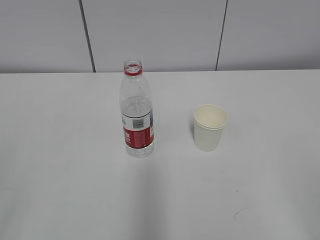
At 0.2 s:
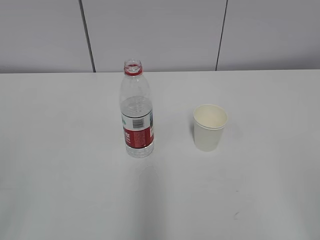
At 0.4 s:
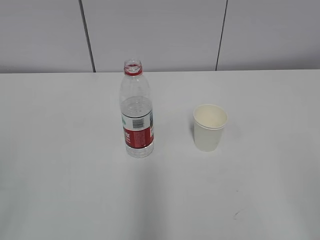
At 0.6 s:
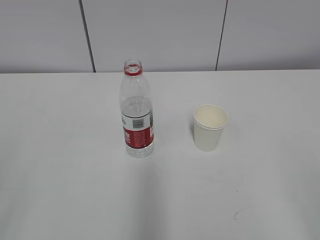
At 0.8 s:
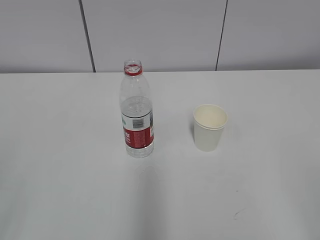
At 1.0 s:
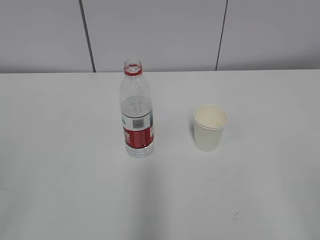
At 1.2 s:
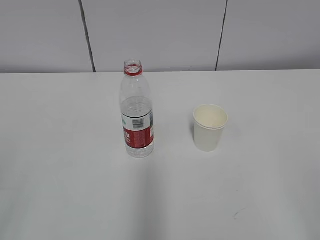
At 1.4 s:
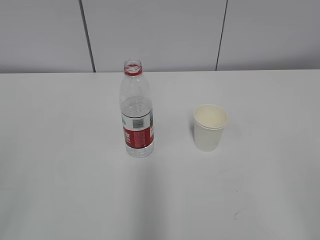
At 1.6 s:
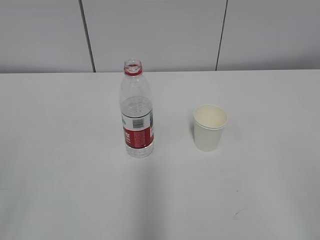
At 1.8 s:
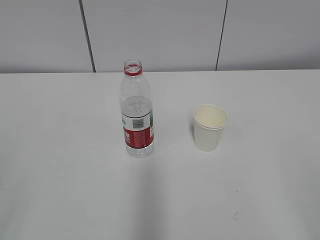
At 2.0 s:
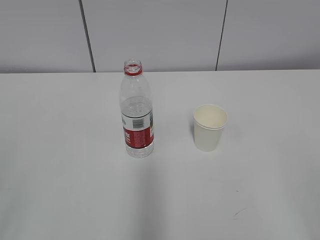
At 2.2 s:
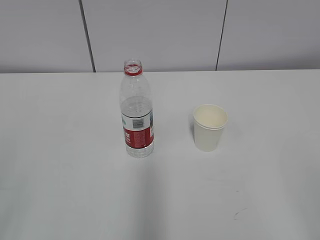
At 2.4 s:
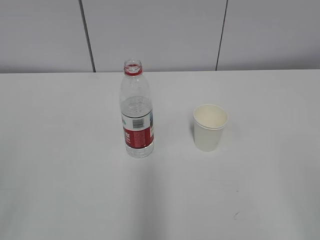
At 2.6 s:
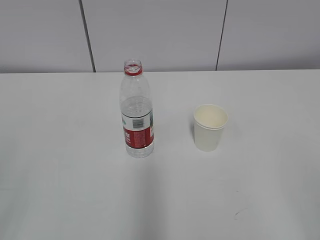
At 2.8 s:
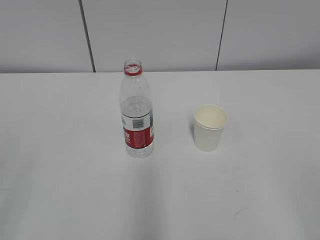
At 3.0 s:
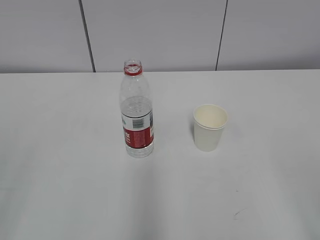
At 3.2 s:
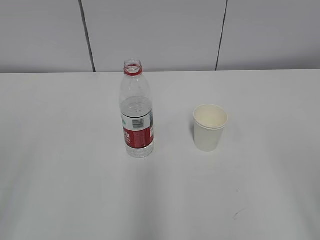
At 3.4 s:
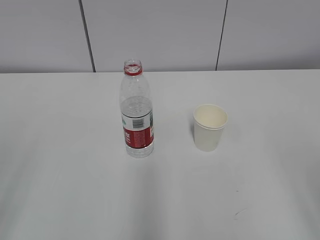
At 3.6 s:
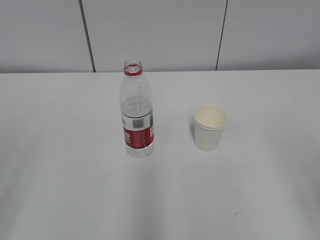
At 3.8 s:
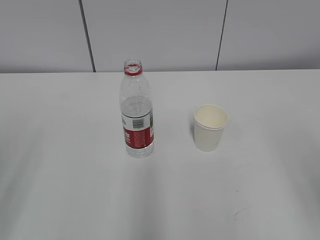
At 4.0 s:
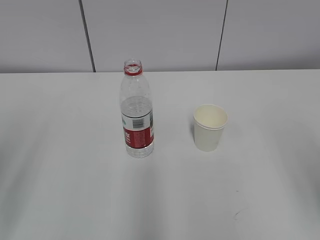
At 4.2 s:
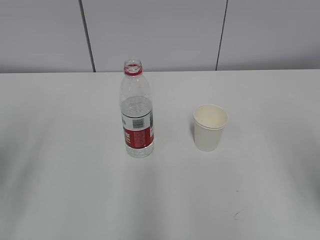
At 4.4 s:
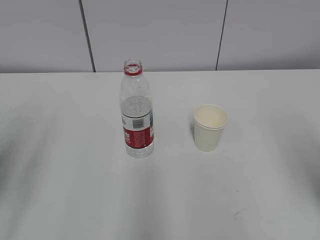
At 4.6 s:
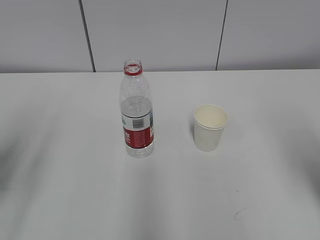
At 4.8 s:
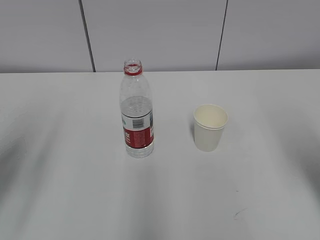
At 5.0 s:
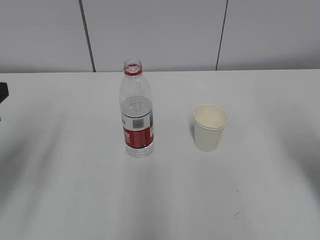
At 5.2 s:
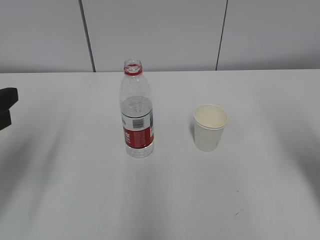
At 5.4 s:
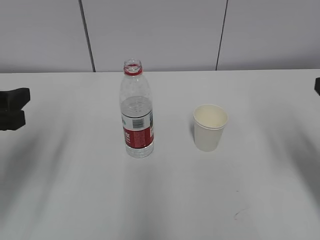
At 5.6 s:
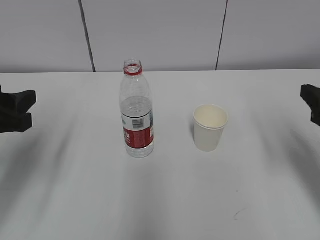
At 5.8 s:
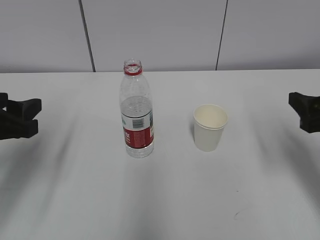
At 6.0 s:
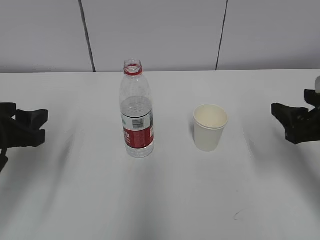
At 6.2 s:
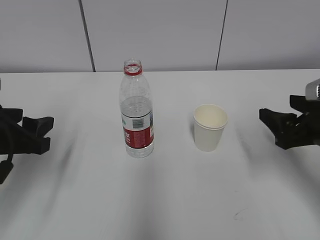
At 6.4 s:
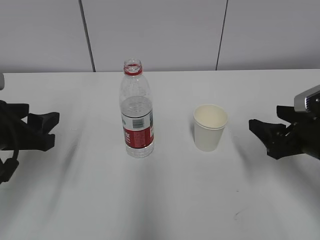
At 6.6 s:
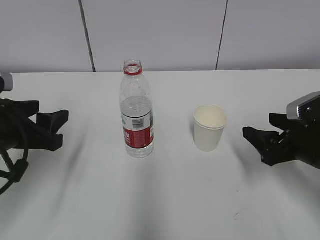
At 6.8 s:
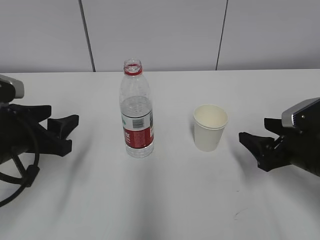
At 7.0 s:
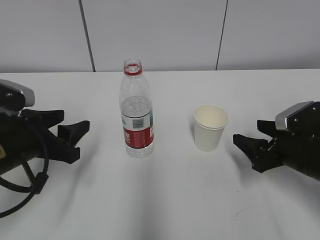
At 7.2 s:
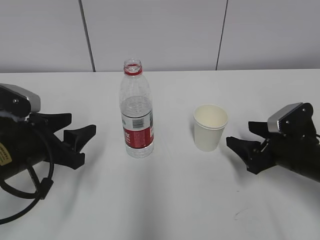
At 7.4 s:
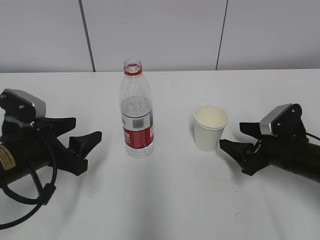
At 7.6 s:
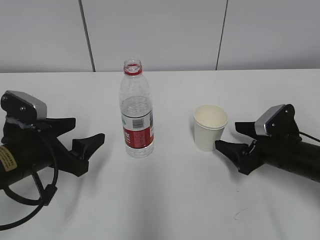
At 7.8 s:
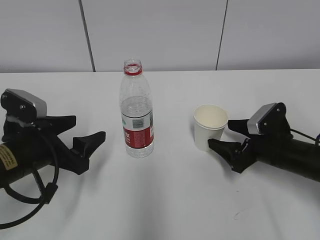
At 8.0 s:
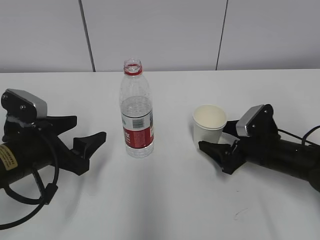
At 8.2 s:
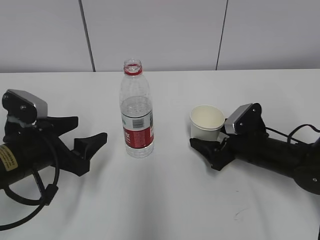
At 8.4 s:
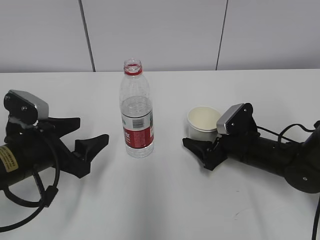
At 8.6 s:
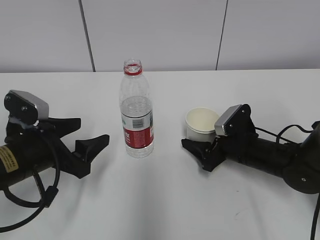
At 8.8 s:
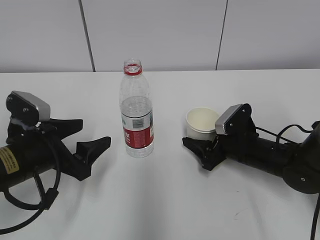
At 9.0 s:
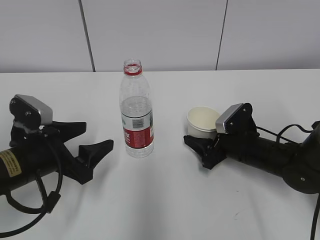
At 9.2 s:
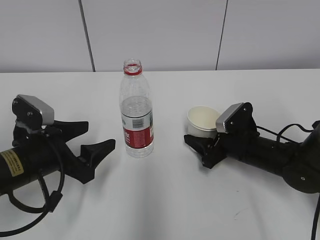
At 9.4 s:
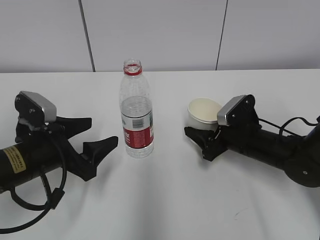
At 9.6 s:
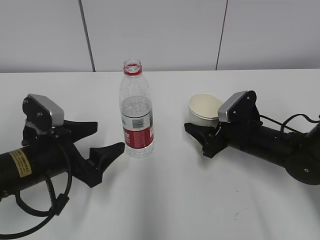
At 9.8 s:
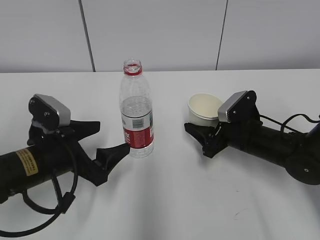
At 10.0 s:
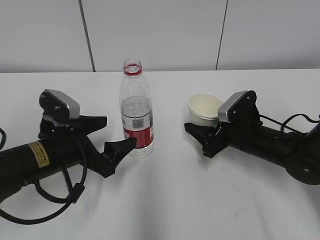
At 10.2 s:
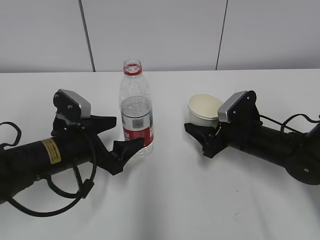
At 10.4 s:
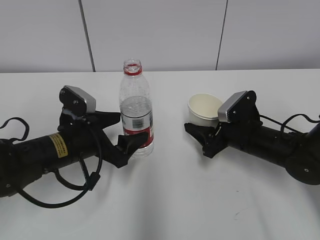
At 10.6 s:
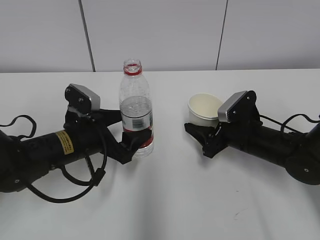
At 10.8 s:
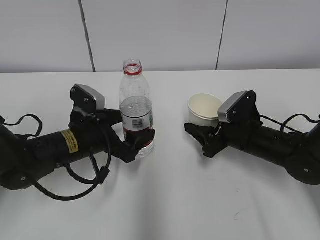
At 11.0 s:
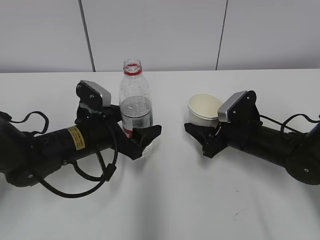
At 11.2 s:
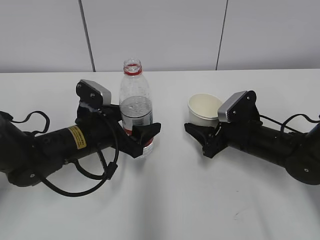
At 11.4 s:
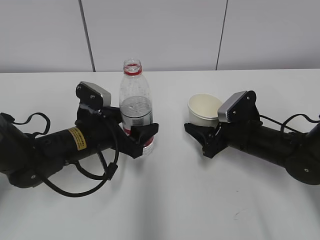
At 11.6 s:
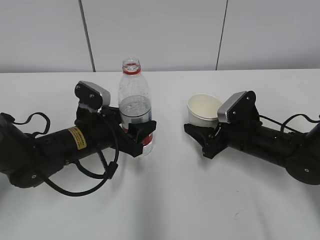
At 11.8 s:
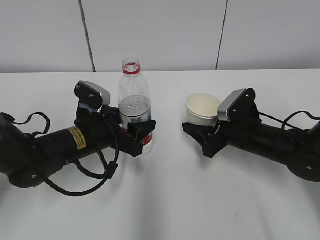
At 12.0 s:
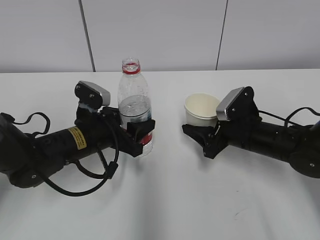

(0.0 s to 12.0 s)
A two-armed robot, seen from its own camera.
Step, 0.0 s - 7.2 s: Grab the paper cup with the right hand.
Step, 7.4 s - 9.8 s: Grab the water bottle with the left hand.
4.4 s - 6.0 s: Both grippers move forward and downward, about 15 cm.
6.0 s - 7.6 s: The right gripper travels downward and forward by approximately 15 cm, and opens up. The left gripper moves downward, approximately 5 cm, and opens its fingers.
7.6 s - 9.0 s: The right gripper travels to the left by roughly 5 cm, and closes.
9.0 s - 10.4 s: The left gripper changes place by roughly 5 cm.
10.4 s - 12.0 s: The left gripper closes its fingers.

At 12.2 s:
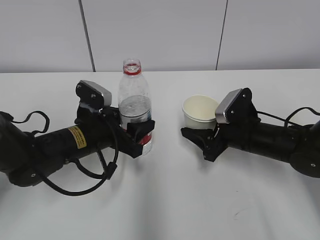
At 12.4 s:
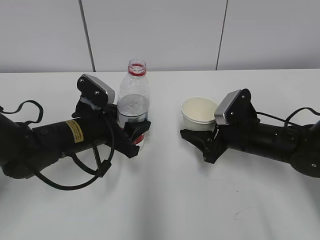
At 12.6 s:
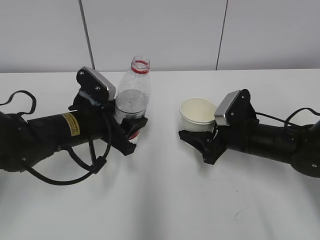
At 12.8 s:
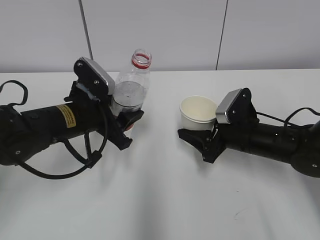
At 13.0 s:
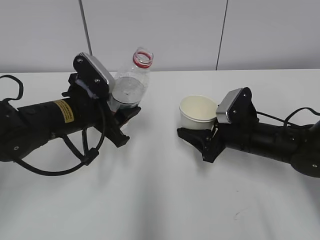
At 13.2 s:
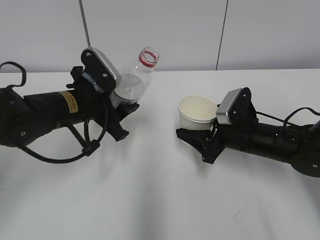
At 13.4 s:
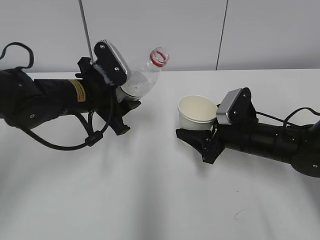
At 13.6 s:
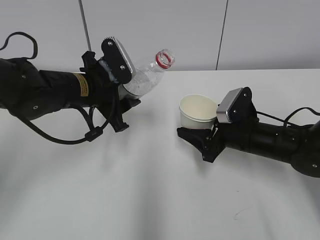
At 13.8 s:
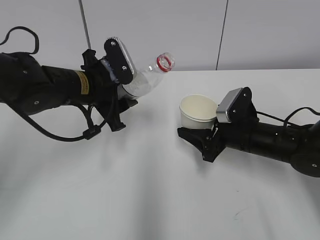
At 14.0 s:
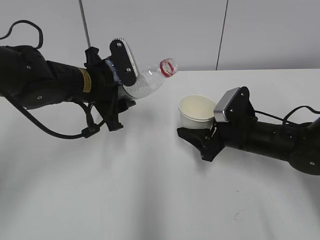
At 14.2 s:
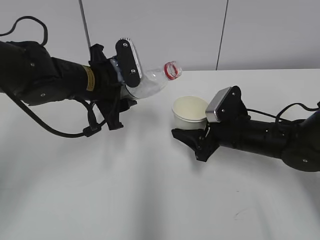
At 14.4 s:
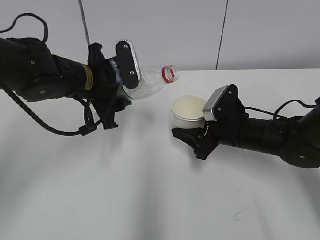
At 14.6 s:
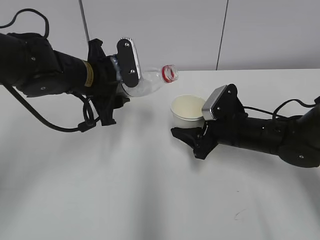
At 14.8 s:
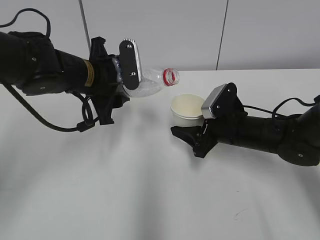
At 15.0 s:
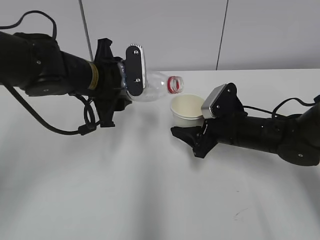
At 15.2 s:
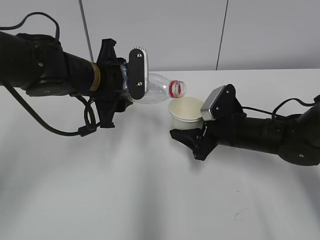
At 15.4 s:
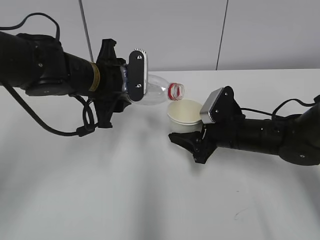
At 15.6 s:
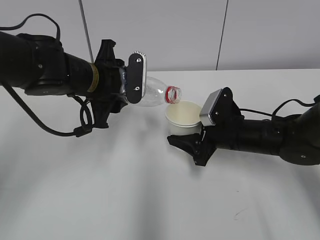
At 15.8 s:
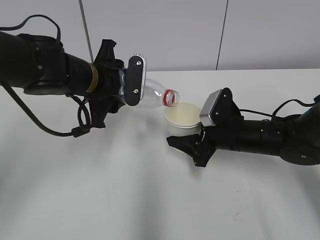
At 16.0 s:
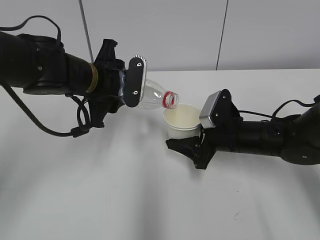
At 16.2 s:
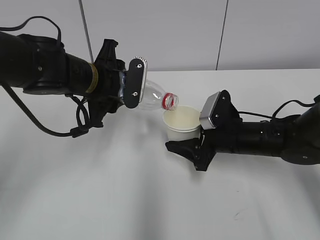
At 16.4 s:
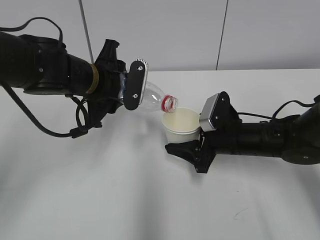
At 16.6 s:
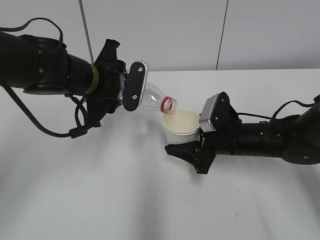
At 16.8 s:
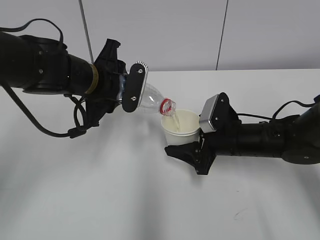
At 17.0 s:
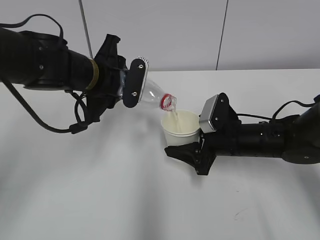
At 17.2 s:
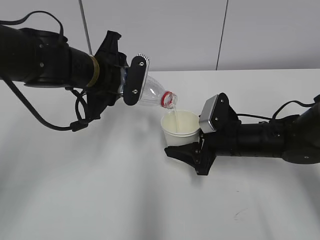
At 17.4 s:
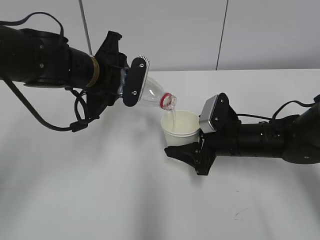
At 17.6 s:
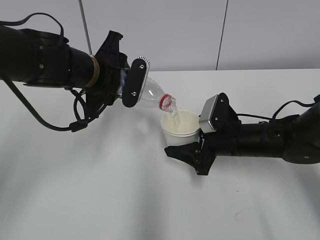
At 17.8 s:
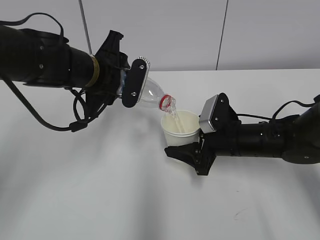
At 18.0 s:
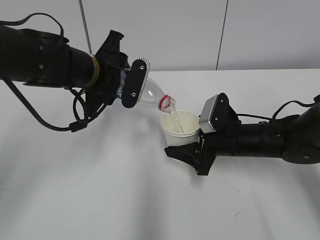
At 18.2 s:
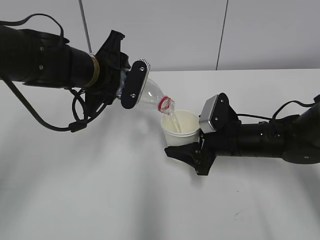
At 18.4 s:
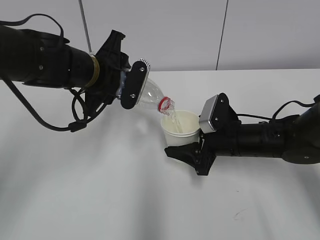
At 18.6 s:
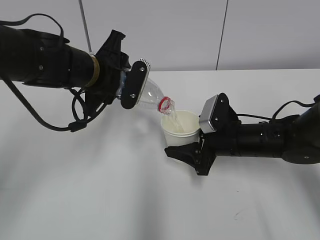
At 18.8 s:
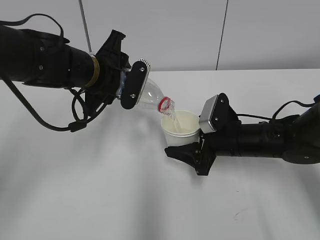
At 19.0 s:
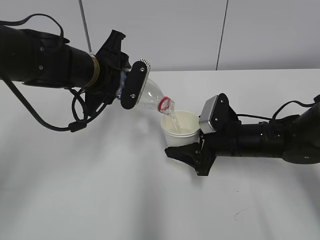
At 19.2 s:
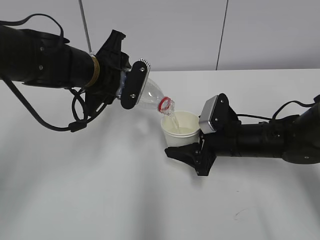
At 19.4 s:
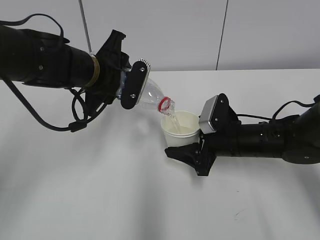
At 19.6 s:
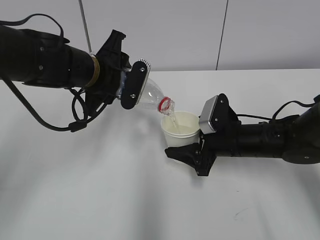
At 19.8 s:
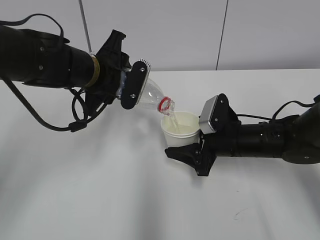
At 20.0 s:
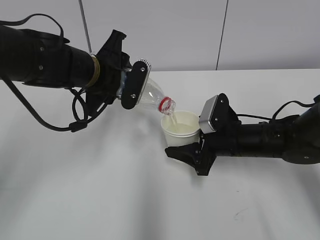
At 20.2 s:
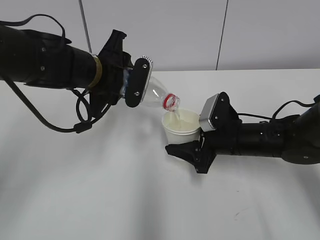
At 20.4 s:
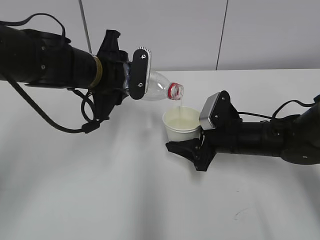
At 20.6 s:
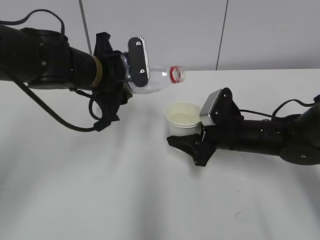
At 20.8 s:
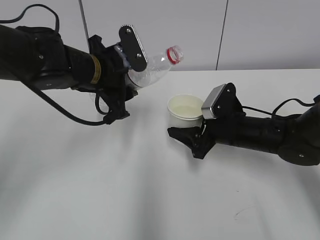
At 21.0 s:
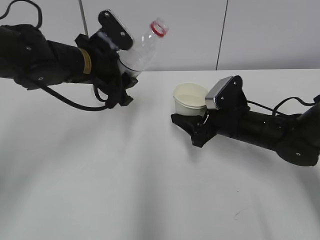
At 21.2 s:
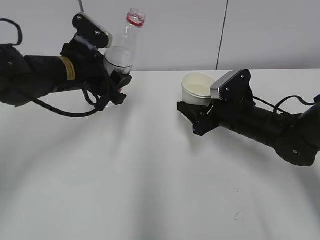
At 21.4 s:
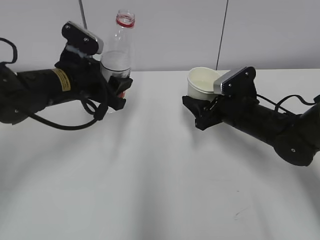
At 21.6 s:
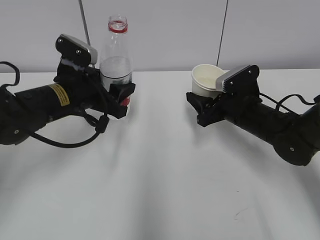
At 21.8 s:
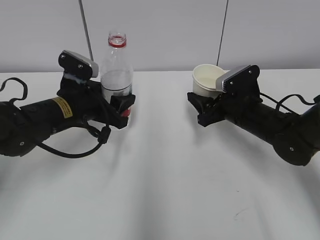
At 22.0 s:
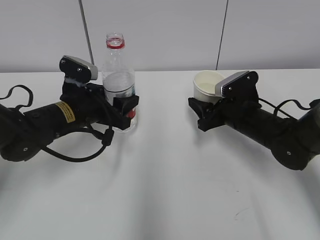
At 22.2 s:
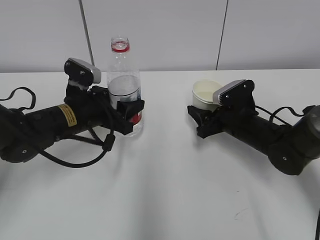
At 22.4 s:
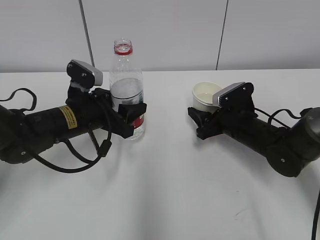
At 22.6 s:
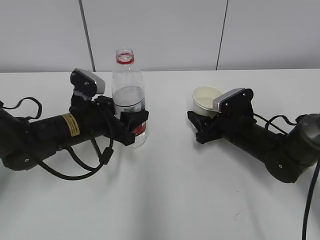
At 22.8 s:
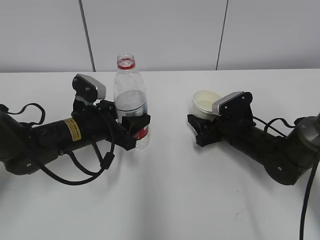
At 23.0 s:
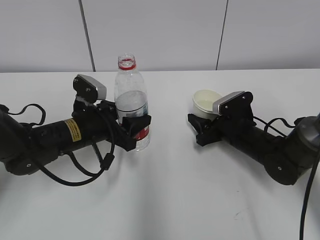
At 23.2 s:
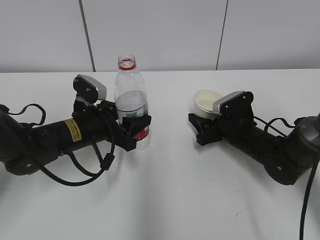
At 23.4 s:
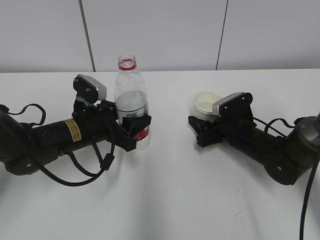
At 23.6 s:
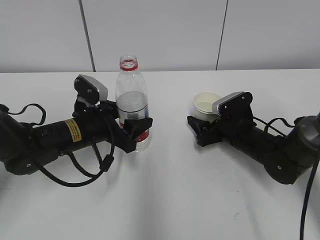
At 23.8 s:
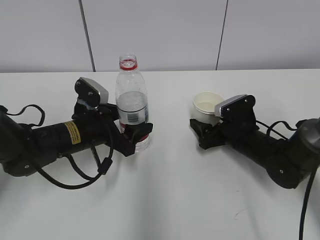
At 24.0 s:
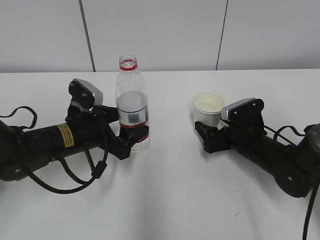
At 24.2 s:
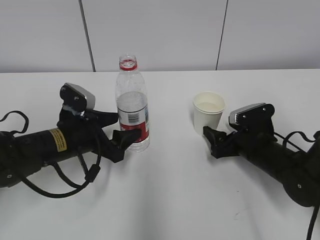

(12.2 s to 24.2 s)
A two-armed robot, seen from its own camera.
Step, 14.0 s - 17.0 s: Fill water with the right hand.
Step, 14.0 s - 17.0 s: Pour water with the left hand.
Step, 17.2 s - 18.2 s: Collect water with the left hand.
12.2 s - 13.8 s: The left gripper is displaced upward by roughly 10 cm.
15.2 s - 16.6 s: There are only small adjustments of the grippers.
16.6 s - 18.2 s: There are only small adjustments of the grippers.
18.2 s - 19.8 s: The two grippers keep their place.
21.2 s - 22.6 s: The right gripper shifts by about 5 cm; the left gripper is displaced downward by roughly 10 cm.
22.6 s - 24.2 s: The left gripper opens. Meanwhile the right gripper opens.
